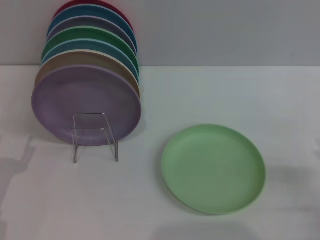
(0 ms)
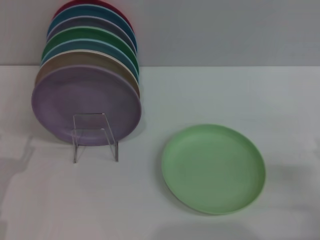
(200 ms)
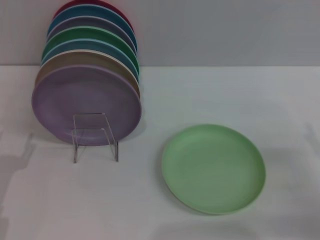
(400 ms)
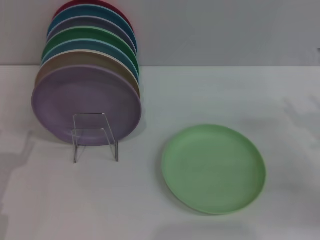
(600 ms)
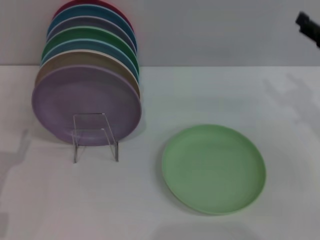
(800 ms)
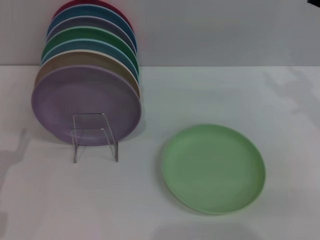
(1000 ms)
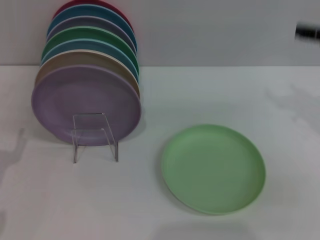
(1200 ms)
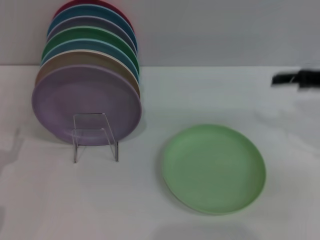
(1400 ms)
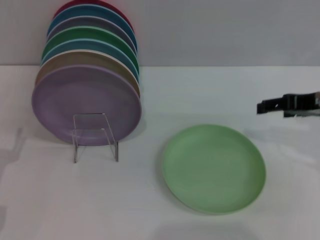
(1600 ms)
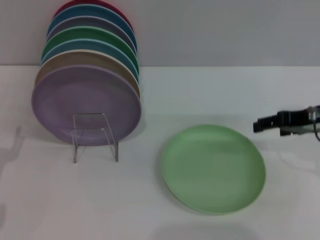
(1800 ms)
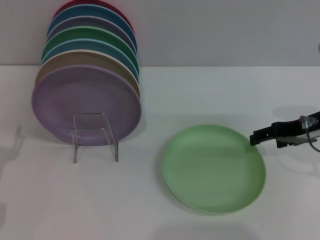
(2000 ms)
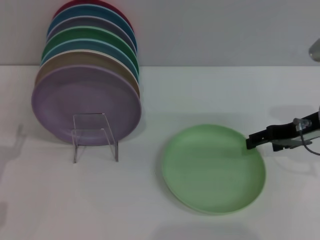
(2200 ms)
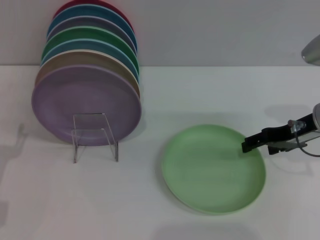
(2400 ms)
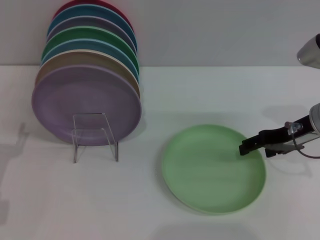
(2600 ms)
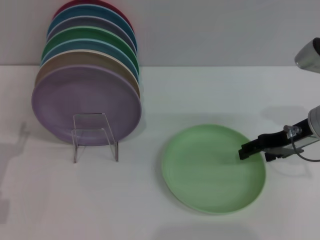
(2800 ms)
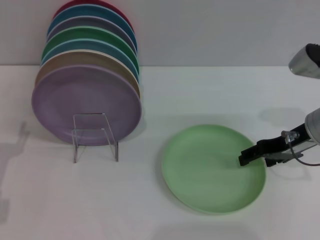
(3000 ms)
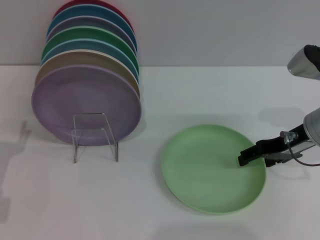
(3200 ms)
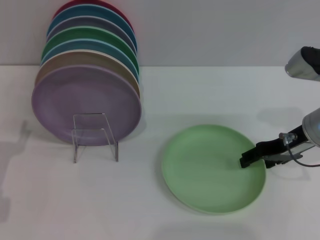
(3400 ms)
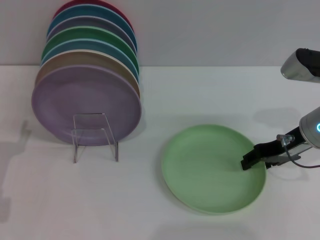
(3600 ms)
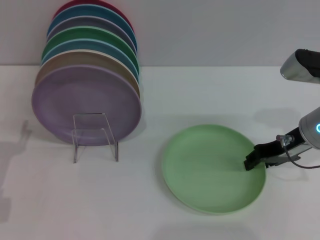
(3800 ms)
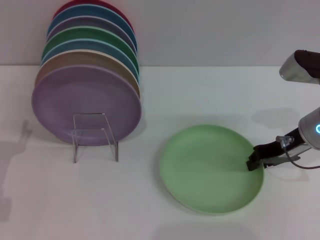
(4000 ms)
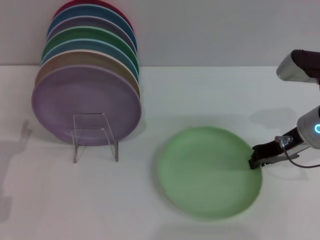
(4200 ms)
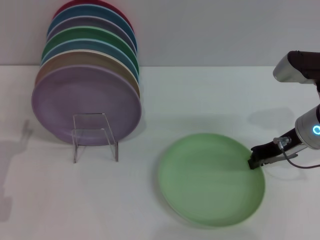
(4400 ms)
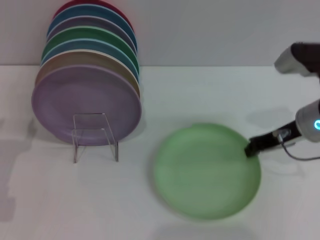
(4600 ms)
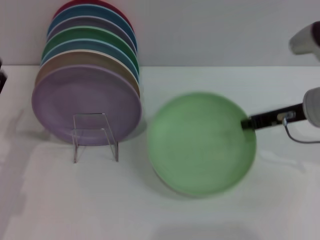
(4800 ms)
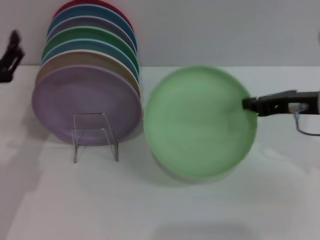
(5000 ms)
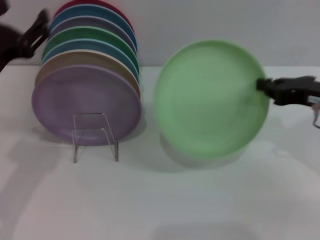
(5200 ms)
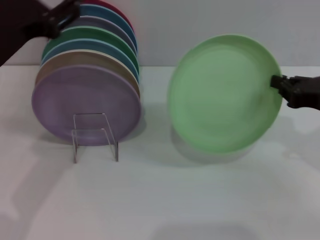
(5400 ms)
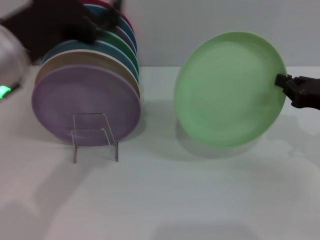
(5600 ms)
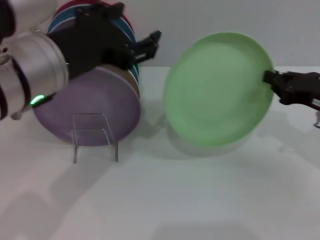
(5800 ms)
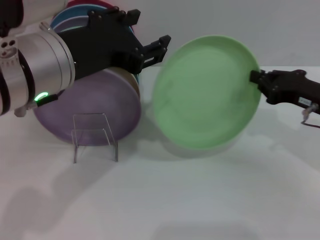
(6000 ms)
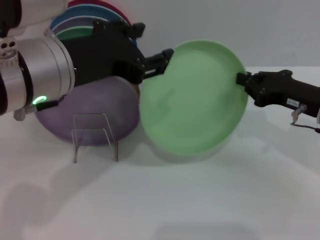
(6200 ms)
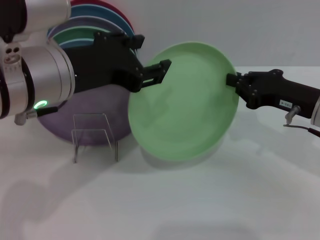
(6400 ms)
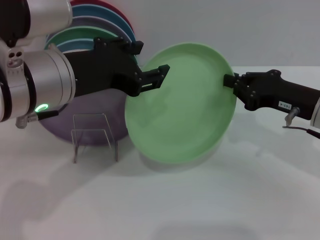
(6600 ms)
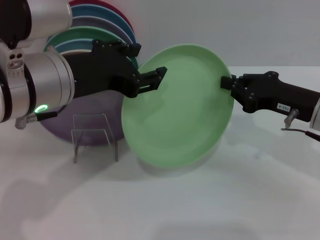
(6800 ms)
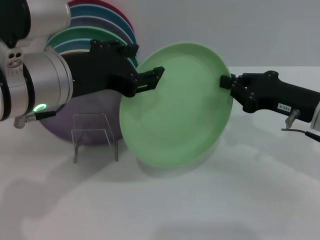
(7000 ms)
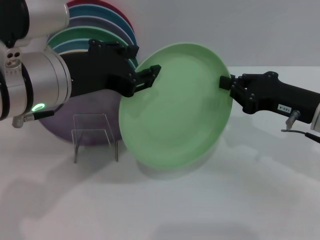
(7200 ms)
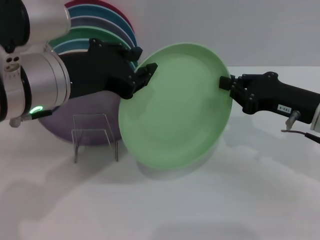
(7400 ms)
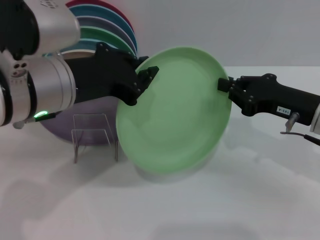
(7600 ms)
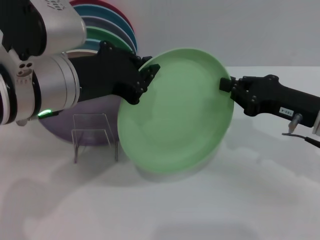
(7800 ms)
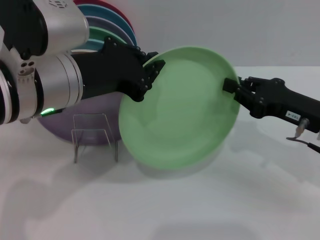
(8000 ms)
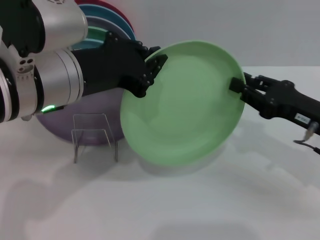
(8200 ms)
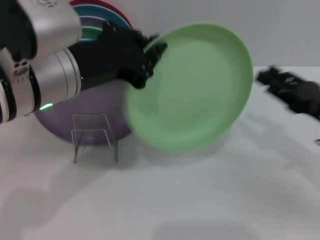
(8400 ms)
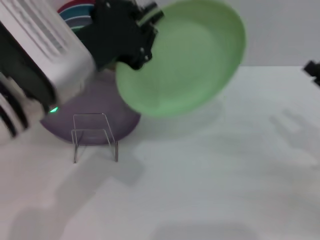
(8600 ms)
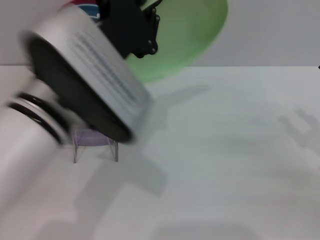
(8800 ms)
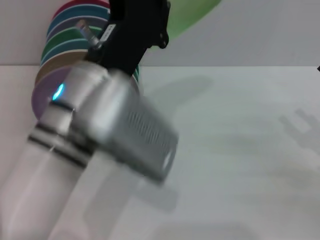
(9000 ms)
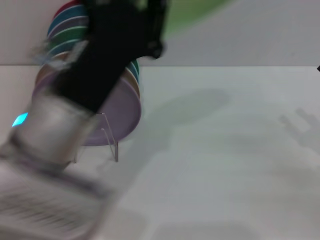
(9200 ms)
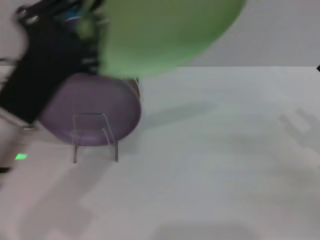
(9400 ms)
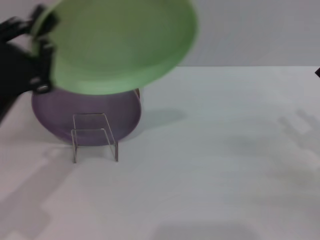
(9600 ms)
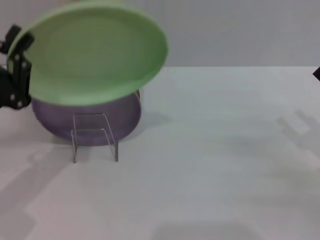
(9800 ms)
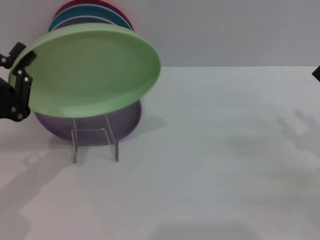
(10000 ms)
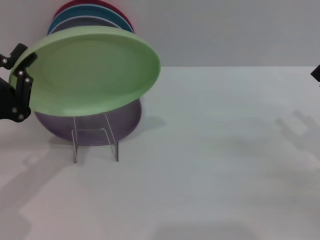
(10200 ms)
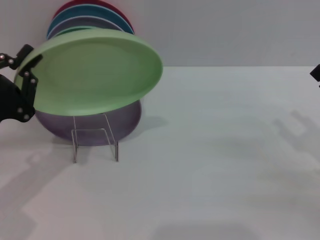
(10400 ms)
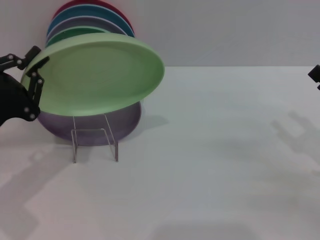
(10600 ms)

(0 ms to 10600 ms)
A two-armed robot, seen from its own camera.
Task of the whole recording: Grip the plate with one hand, pass it to the other, then set it on the shelf.
Step, 0 ms - 4800 ms: Pick up the plate with the right gripper.
Step, 5200 ms - 8800 ms: Pass the plate from the right gripper to the left gripper.
0 ms - 1600 ms: The right gripper travels upward, forward and to the left by about 20 cm.
1600 ms - 3000 ms: The right gripper travels downward by approximately 5 cm.
3000 ms - 4600 ms: The right gripper closes up.
4600 ms - 6000 ms: The left gripper moves upward and to the right, about 25 cm.
6000 ms - 7600 ms: The left gripper closes its fingers.
7600 ms - 9000 ms: The left gripper moves to the right, roughly 5 cm, while the right gripper shifts about 10 cm to the right and backward, and opens up.
9000 ms - 10600 ms: The left gripper moves to the left and downward, some 20 cm.

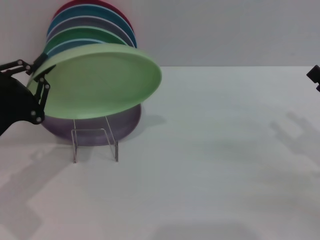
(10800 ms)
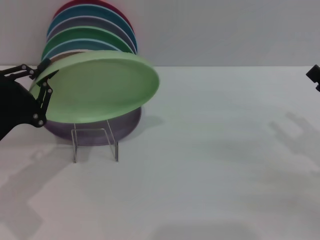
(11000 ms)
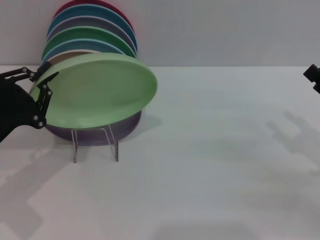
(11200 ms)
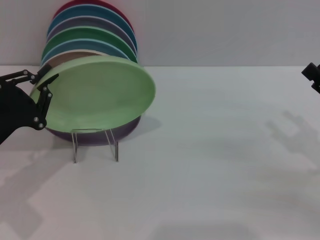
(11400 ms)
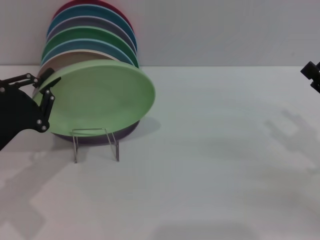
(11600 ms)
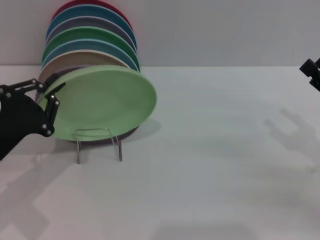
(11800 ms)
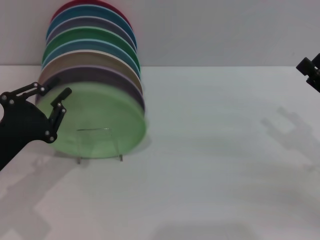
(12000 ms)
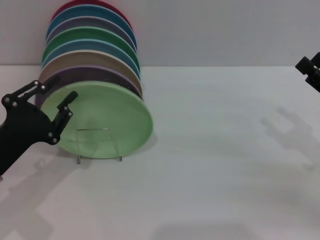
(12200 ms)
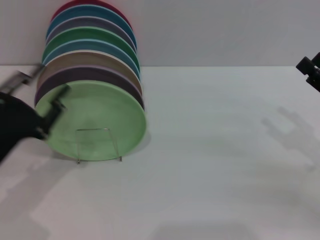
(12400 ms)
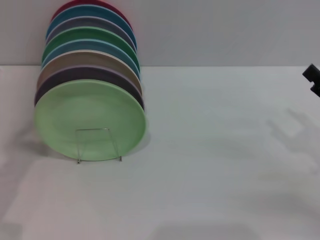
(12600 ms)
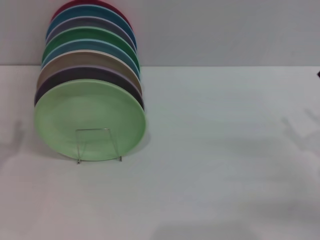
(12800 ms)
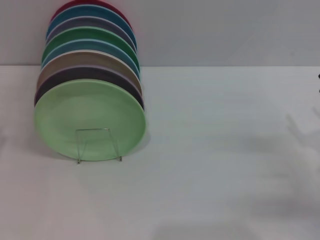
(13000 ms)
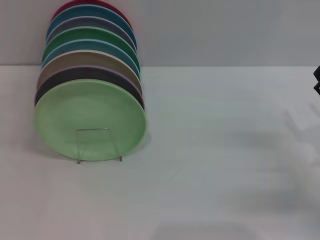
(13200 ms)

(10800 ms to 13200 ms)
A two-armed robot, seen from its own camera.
Task of the whole recording: Grip the plate with one hand, pass it to the other, then set it on the shelf.
10800 ms - 12000 ms: The grippers make only small movements.
12000 ms - 13200 ms: The left gripper goes about 10 cm to the left and backward, and opens.
